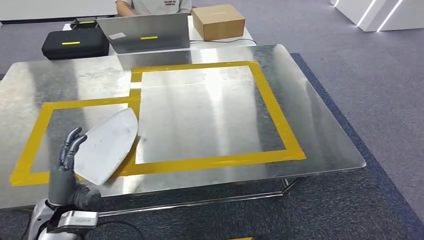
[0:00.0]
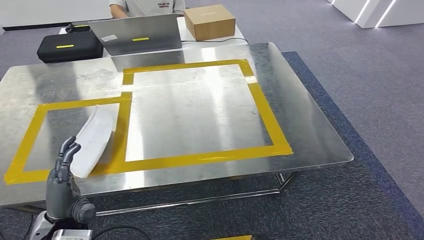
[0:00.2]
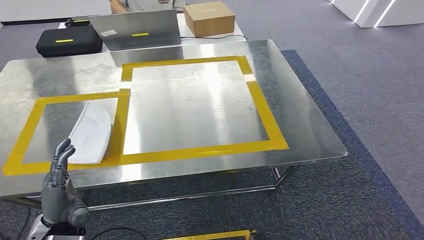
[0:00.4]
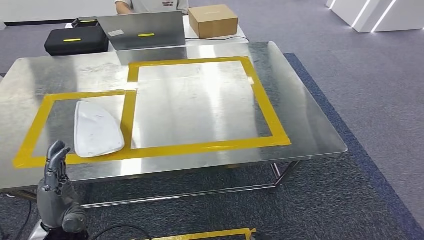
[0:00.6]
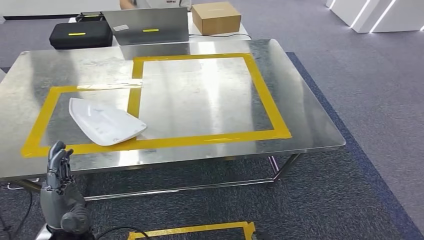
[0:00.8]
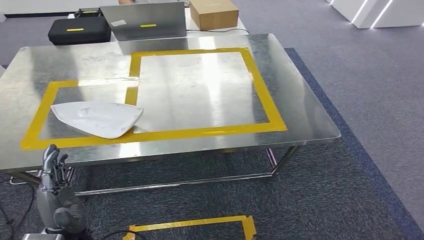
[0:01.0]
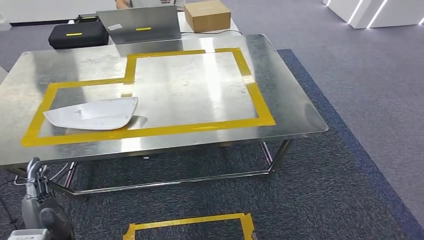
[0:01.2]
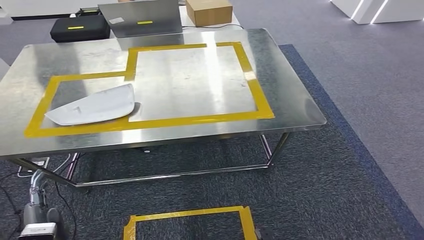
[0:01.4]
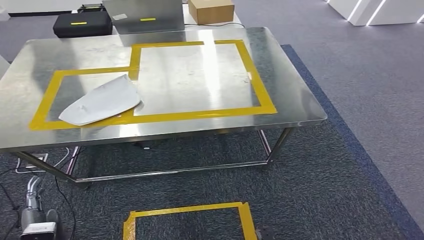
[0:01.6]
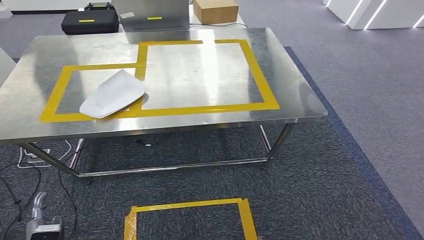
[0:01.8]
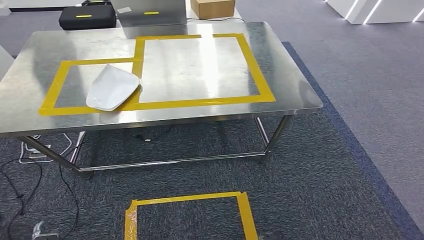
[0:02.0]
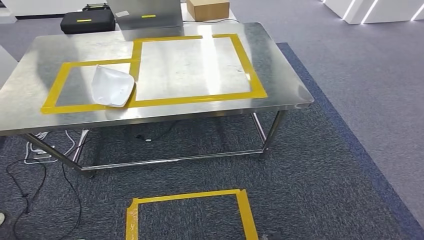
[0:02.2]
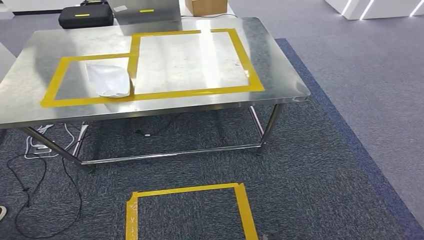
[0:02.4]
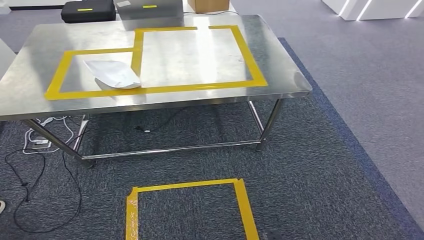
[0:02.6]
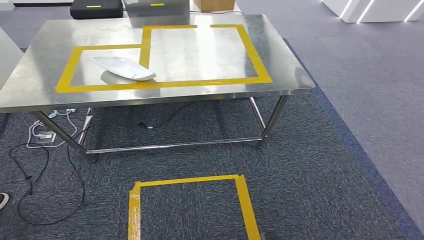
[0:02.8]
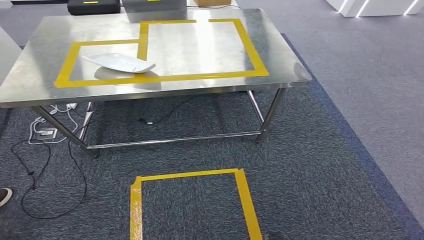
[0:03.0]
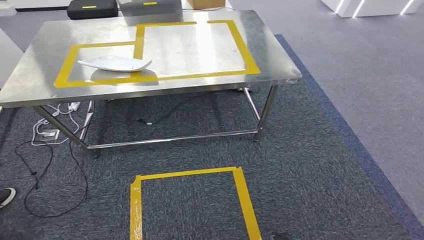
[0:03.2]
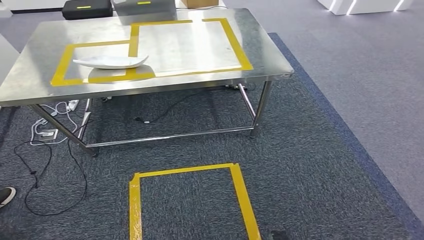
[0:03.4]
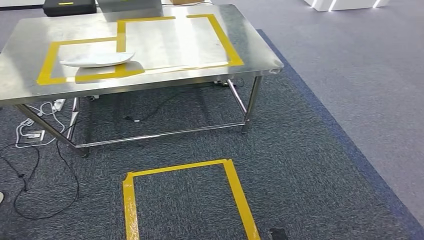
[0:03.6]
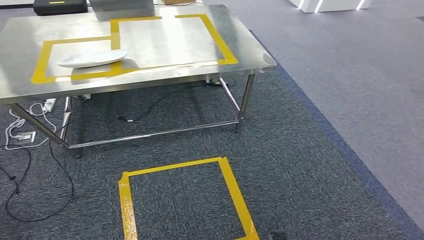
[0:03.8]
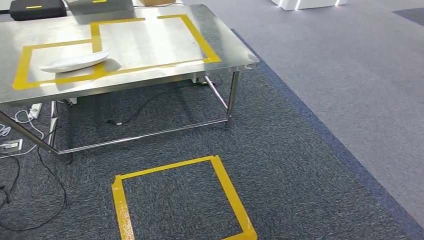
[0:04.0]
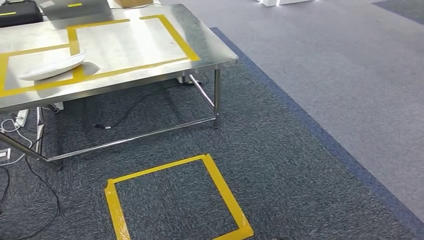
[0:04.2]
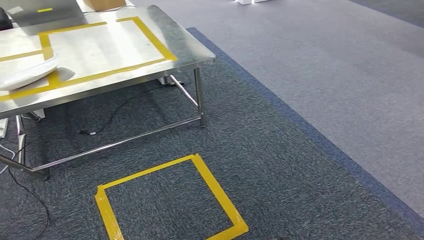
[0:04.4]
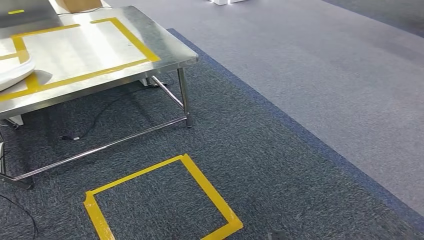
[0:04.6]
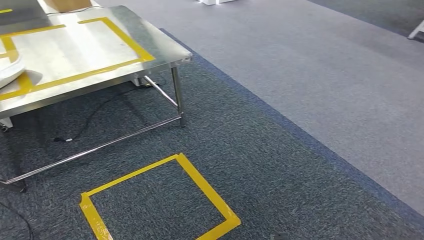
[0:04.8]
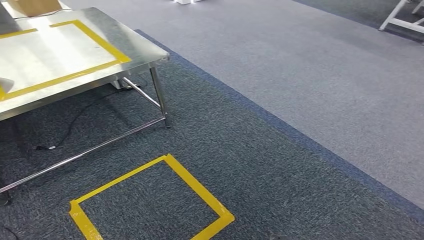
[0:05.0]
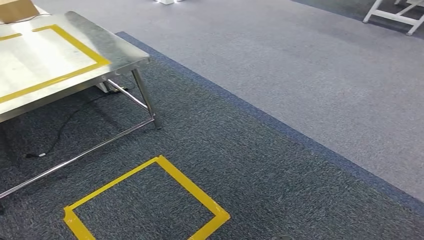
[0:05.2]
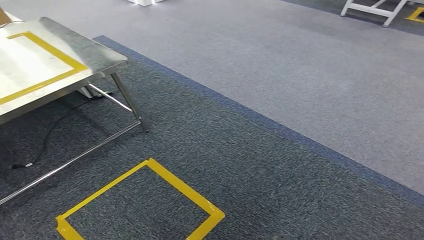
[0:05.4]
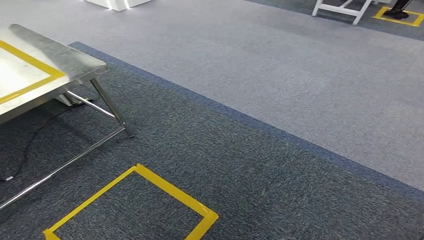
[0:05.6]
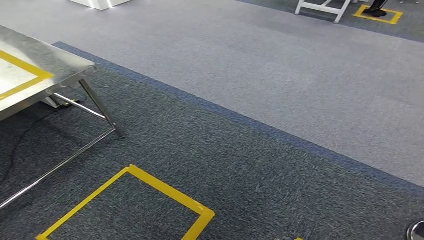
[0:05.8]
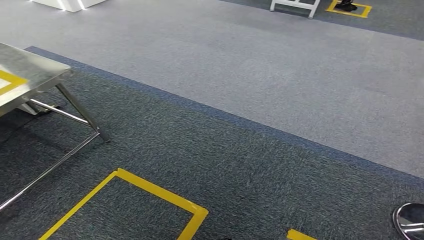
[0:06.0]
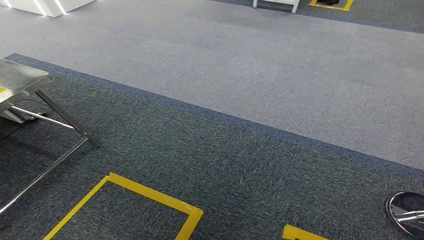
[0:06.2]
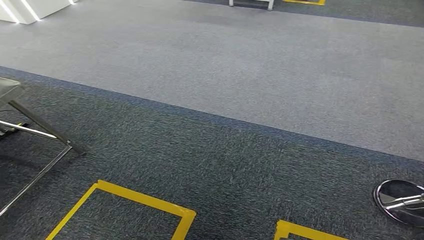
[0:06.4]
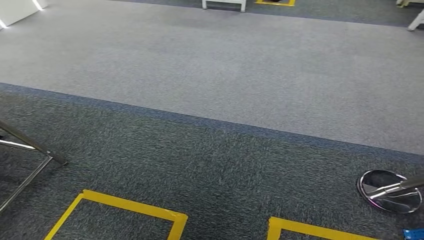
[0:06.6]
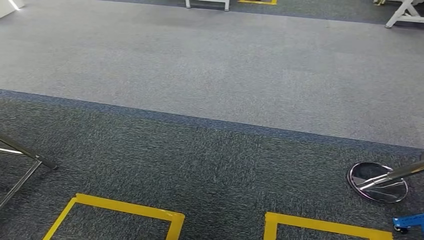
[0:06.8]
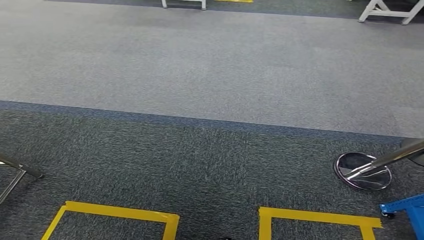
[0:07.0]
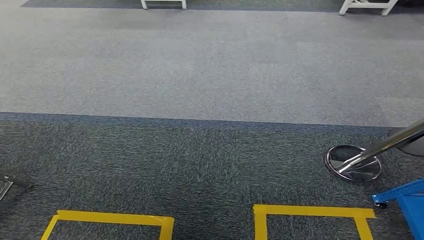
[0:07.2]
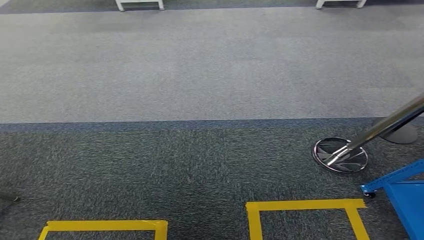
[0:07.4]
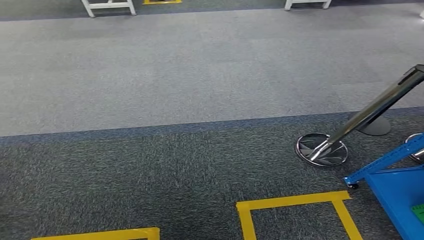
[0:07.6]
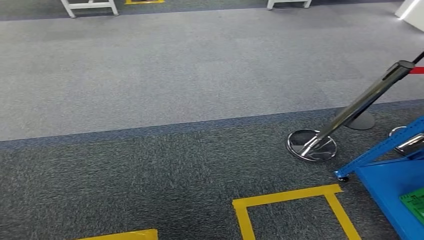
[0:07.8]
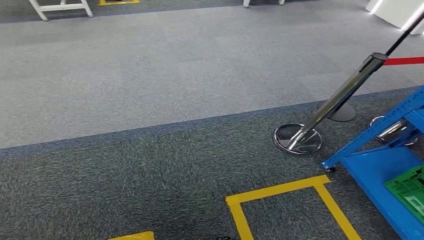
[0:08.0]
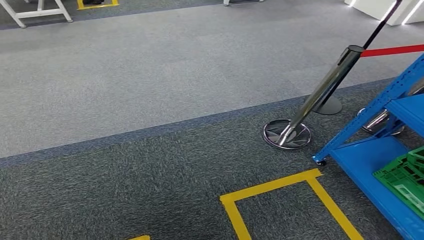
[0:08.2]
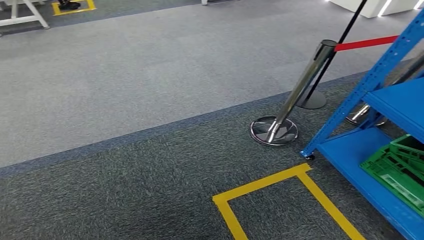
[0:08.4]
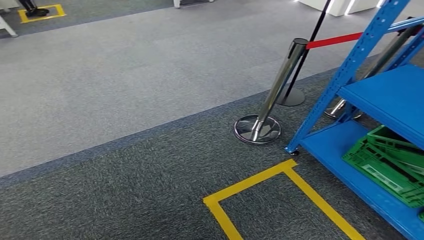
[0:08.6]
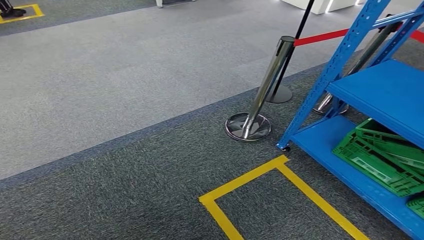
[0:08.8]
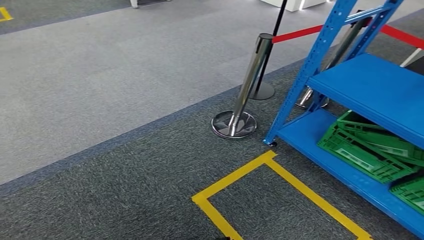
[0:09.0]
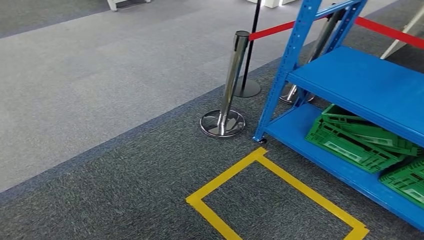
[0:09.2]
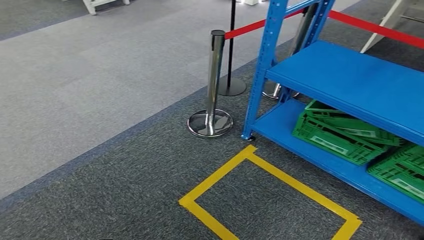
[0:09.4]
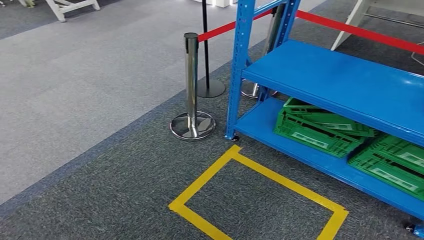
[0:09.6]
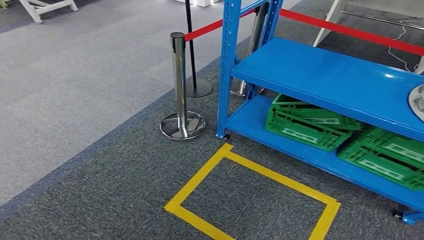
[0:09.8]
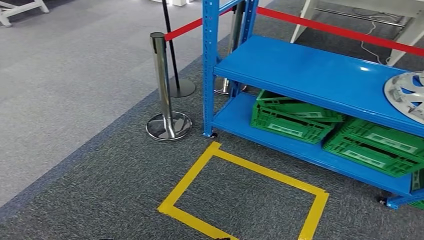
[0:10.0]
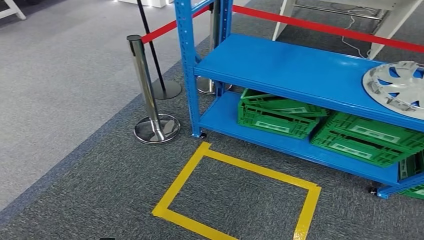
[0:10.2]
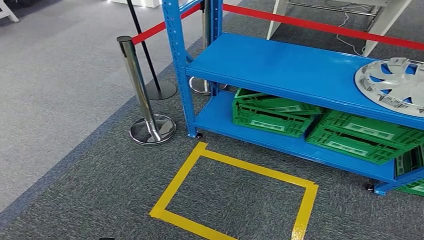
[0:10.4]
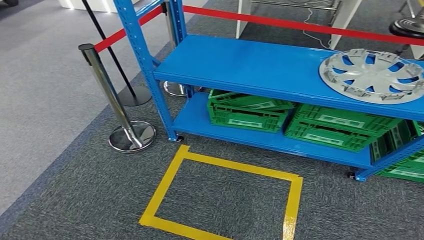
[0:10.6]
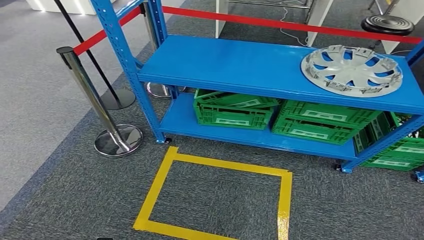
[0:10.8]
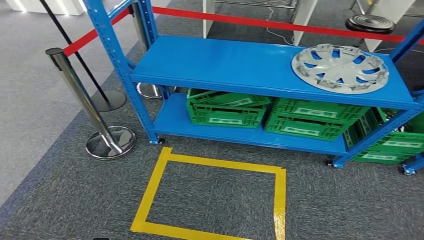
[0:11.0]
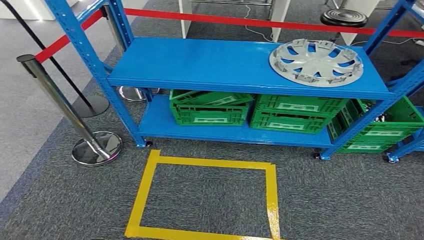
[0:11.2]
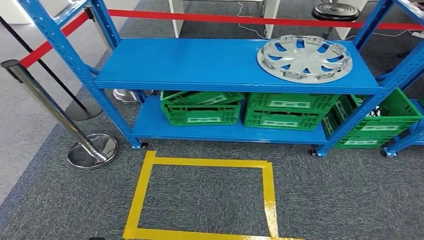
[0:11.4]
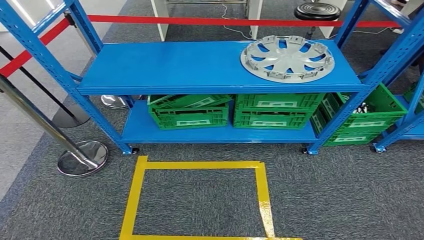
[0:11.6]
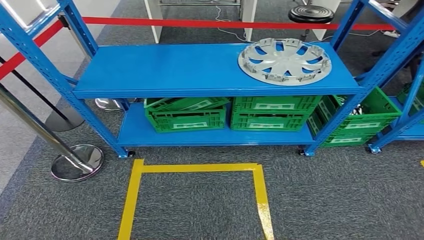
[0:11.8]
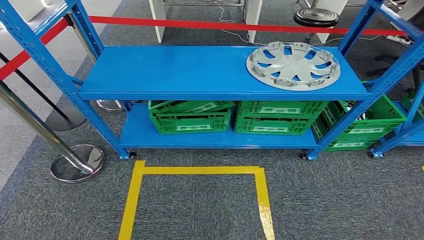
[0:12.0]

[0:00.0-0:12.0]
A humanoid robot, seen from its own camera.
Step, 0:00.0 to 0:02.2: Insert the small component into the corresponding slot on the workbench.

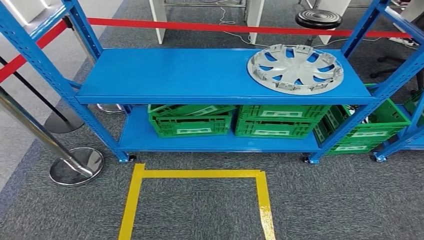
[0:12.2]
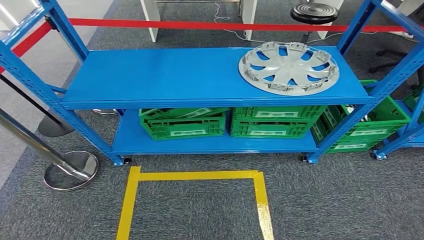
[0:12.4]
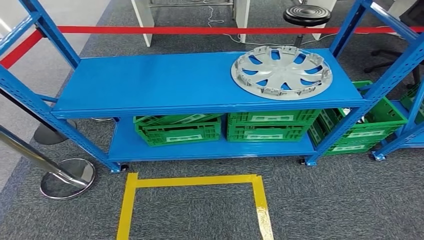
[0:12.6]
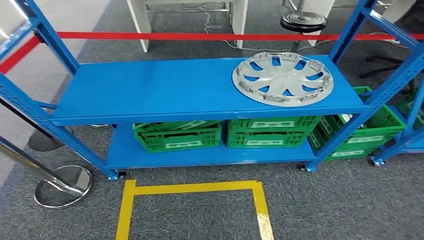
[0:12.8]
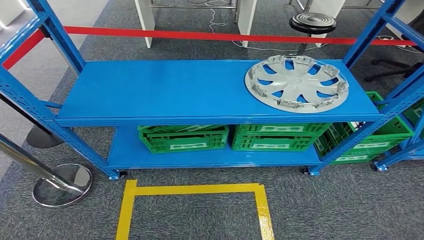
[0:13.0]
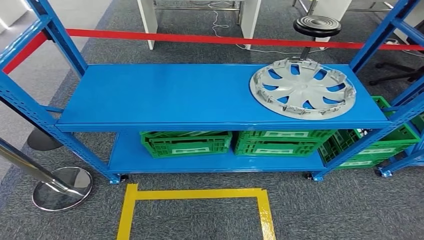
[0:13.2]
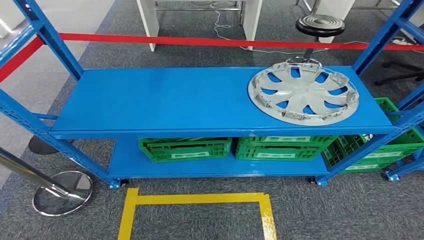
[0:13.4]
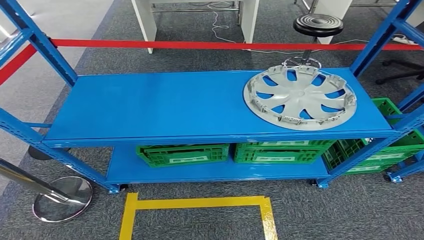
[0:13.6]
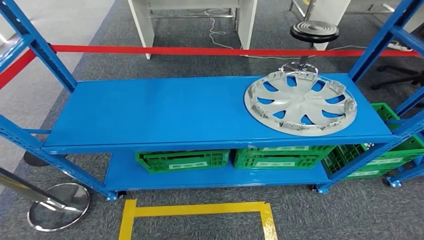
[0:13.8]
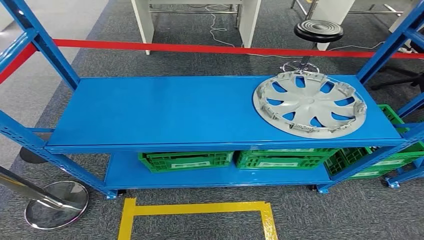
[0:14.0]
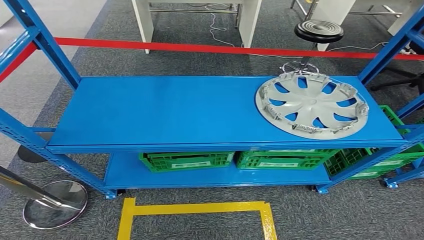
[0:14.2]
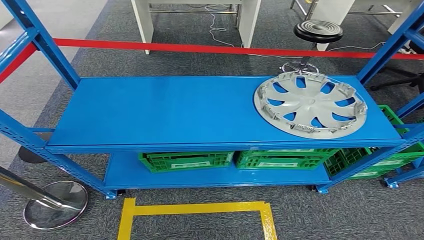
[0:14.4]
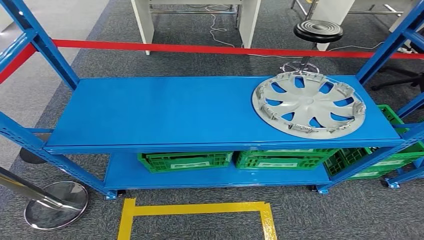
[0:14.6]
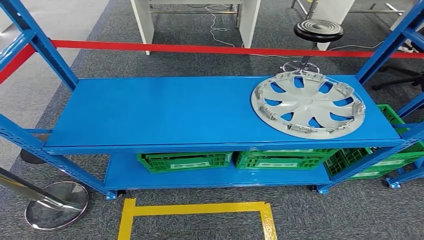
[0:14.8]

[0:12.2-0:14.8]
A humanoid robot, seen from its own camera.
Step, 0:12.2 to 0:14.8: Move to the initial position at the workbench.
